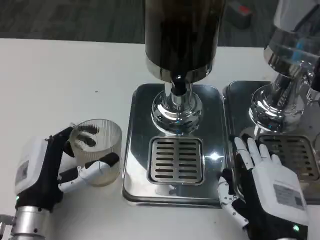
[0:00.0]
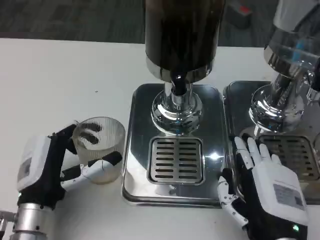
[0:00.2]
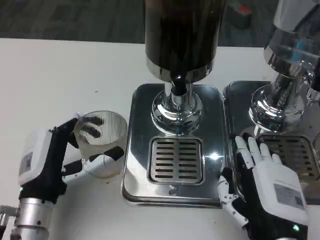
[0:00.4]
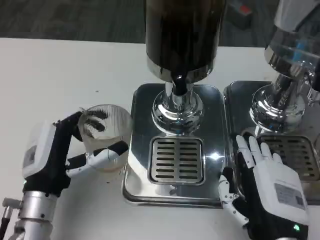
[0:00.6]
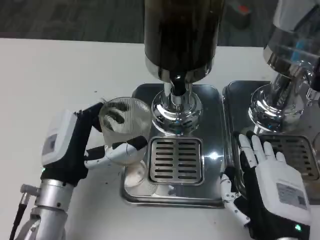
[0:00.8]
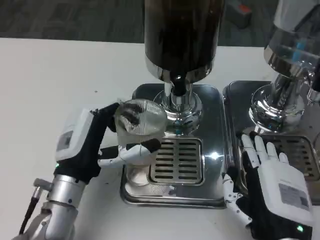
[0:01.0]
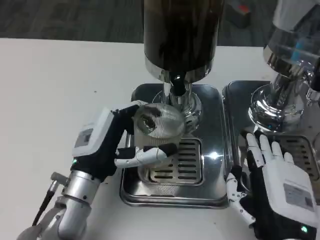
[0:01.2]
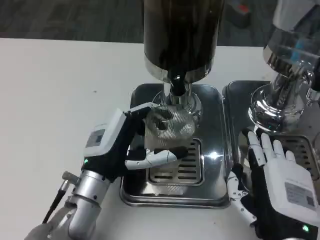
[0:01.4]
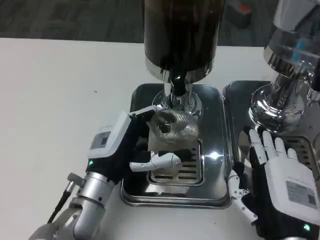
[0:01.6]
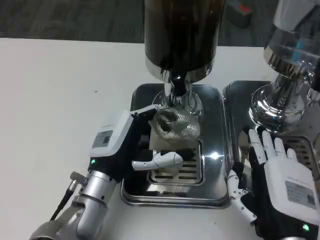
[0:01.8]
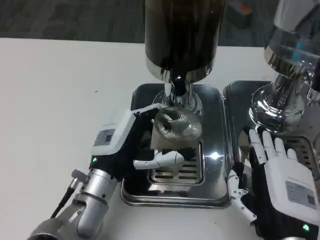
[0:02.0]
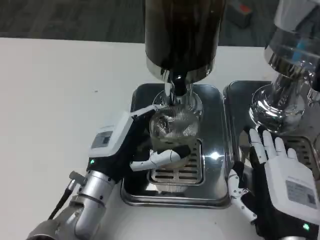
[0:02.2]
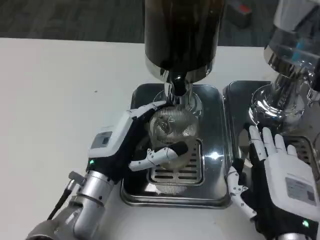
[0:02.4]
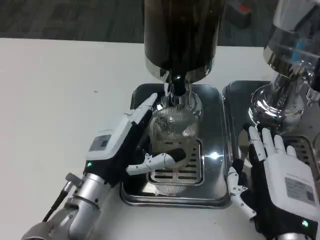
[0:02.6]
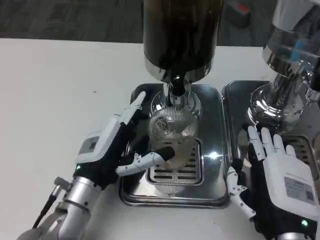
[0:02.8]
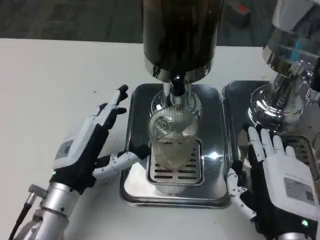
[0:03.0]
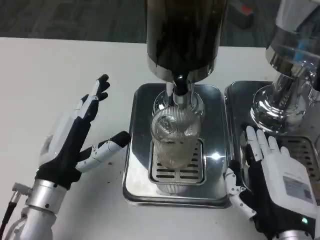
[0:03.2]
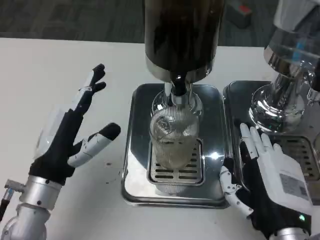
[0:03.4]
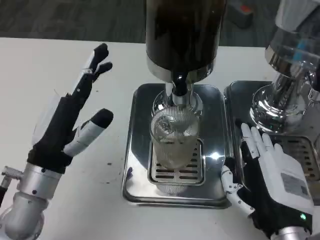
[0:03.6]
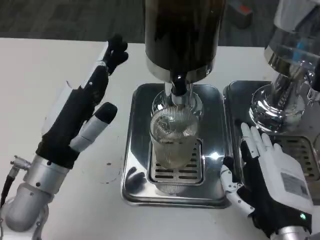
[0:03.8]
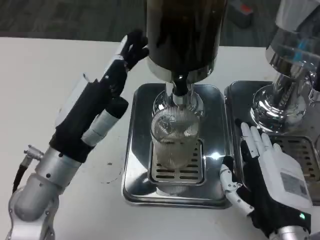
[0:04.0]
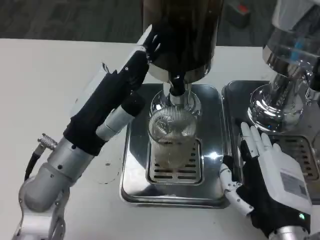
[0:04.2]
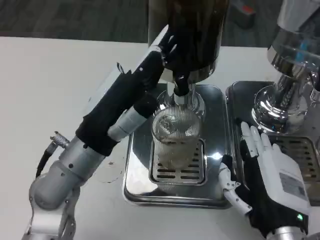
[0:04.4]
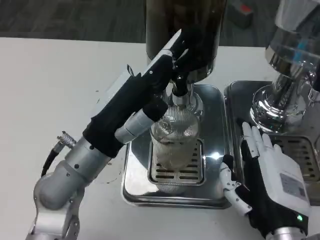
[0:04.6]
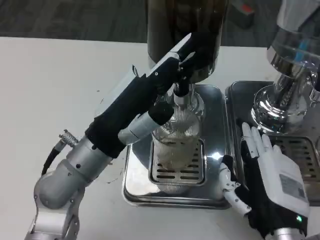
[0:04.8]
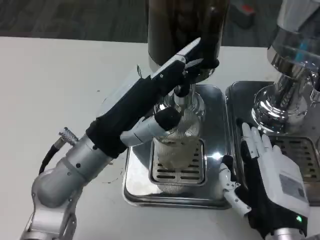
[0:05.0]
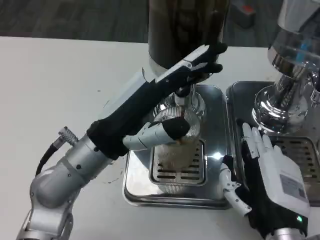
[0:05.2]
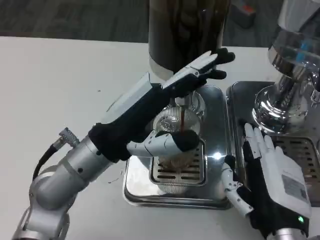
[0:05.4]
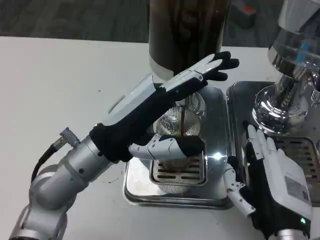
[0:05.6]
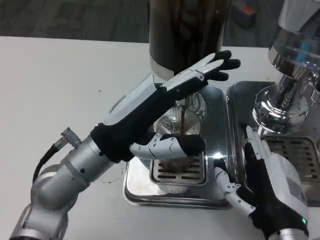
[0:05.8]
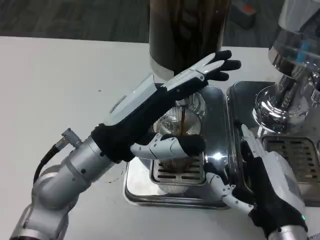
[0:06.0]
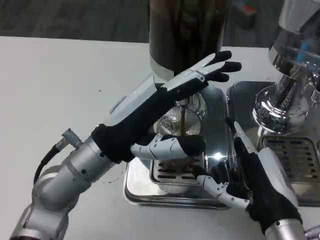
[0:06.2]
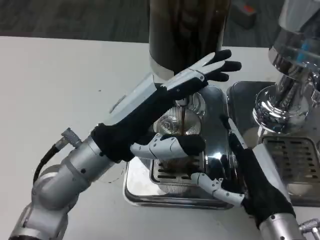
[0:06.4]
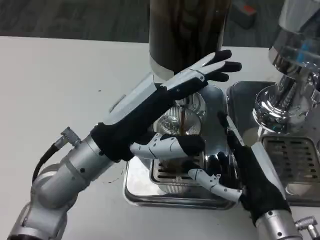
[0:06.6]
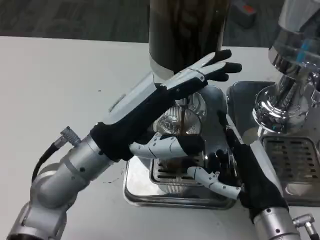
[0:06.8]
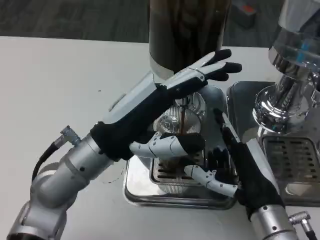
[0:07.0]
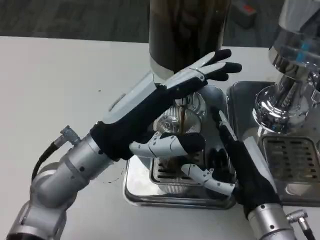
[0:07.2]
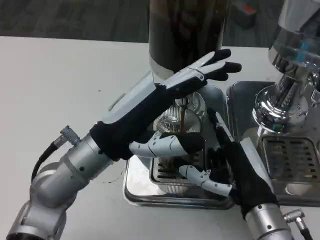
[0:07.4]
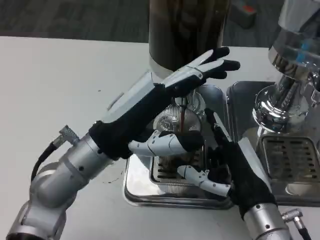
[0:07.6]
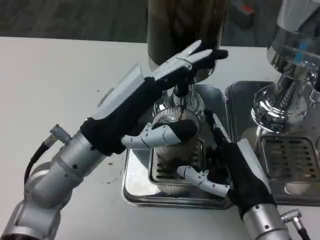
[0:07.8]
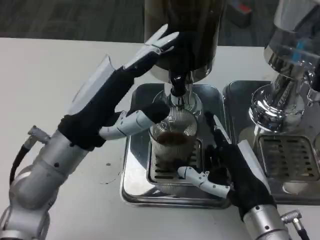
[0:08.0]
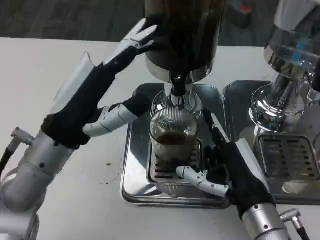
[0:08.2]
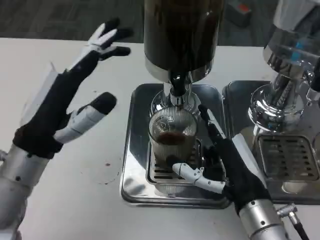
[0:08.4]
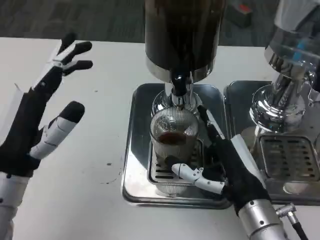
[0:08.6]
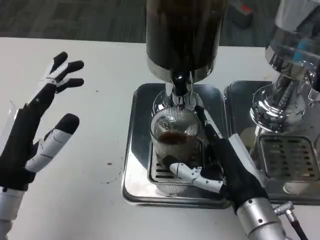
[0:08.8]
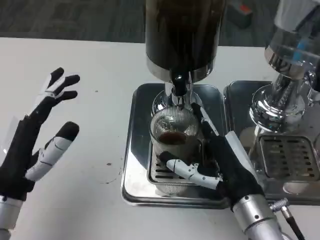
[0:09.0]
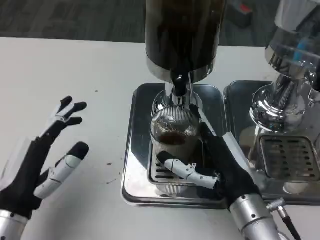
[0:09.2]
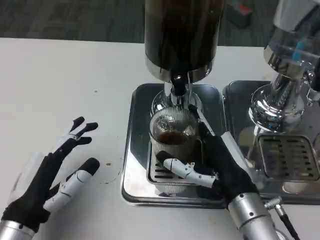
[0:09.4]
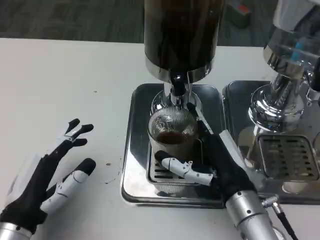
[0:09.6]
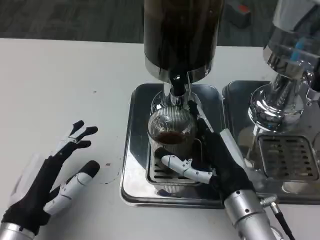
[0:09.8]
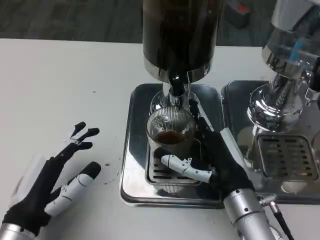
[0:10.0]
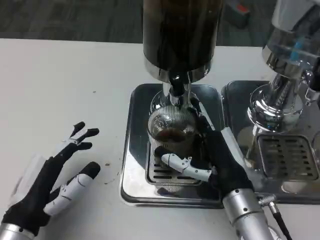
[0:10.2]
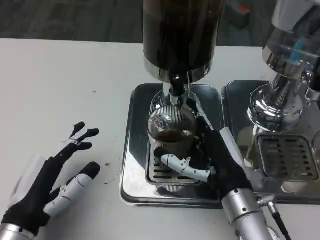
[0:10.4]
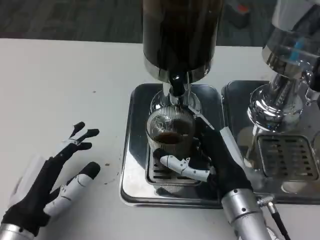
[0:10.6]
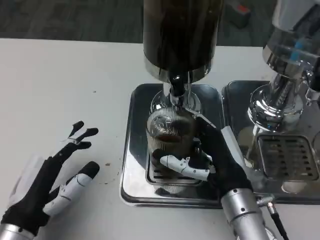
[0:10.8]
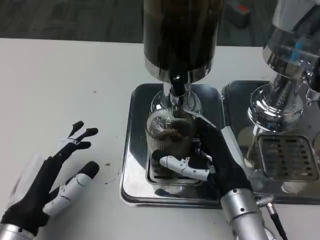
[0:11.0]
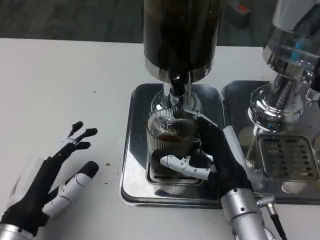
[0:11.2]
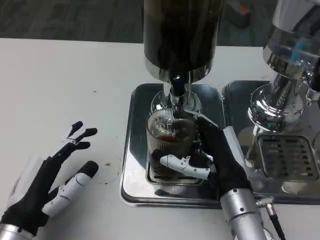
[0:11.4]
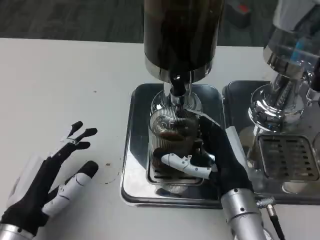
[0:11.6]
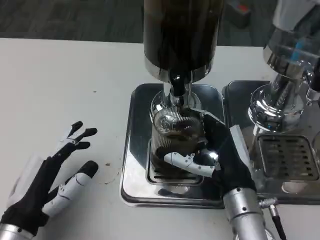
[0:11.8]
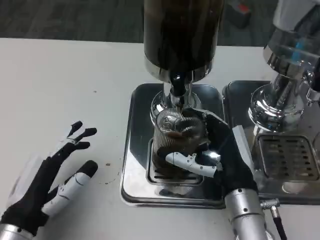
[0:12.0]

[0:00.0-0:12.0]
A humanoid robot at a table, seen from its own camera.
Task of the whole recording: Grasp the cup under the faucet to collect the drink, then remove the cup.
0:00.0 to 0:01.6: The left hand is displaced to the right and forward by some 10 cm.
0:01.6 to 0:03.0: The left hand is displaced to the left by roughly 5 cm.
0:03.0 to 0:04.4: The left hand travels upward by about 10 cm.
0:06.0 to 0:07.6: The hands stay close to where they were, moving slightly.
0:07.6 to 0:09.0: The left hand moves to the left, backward and downward, approximately 15 cm.
0:10.4 to 0:12.0: The hands stay close to where they were, moving slightly.

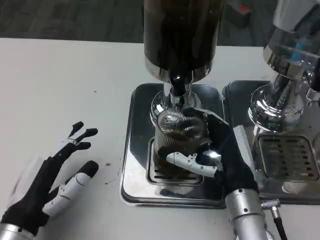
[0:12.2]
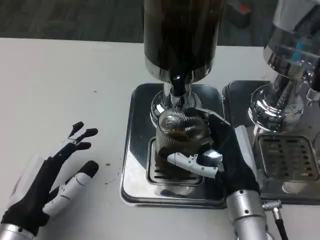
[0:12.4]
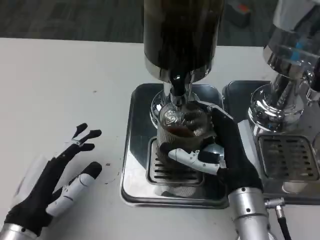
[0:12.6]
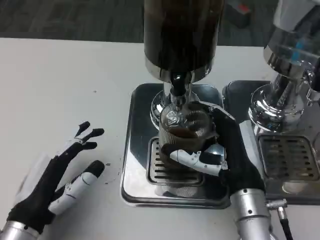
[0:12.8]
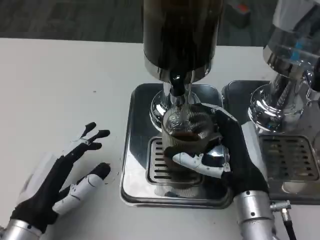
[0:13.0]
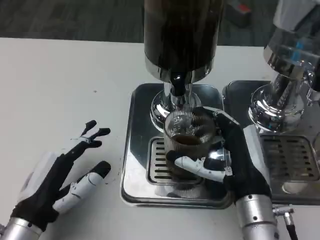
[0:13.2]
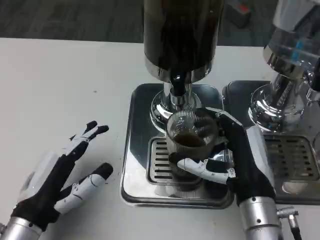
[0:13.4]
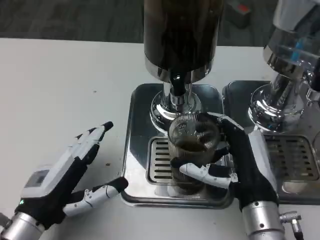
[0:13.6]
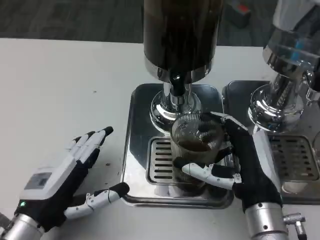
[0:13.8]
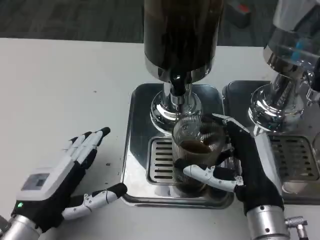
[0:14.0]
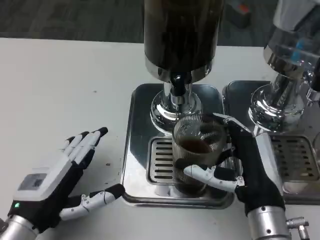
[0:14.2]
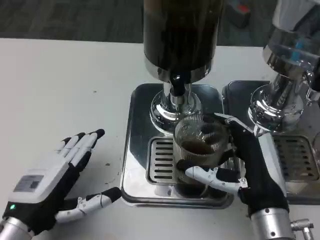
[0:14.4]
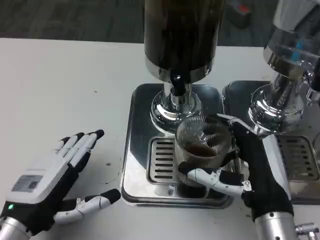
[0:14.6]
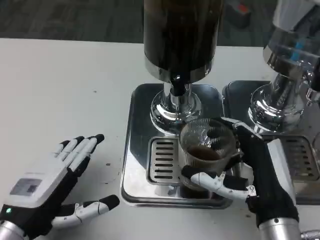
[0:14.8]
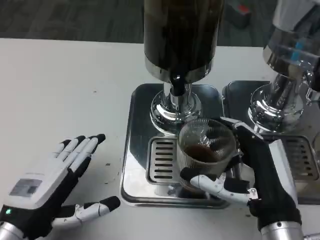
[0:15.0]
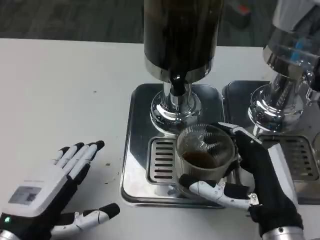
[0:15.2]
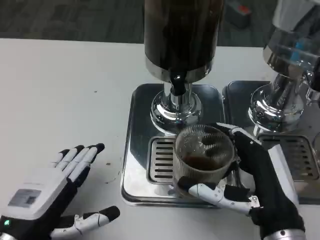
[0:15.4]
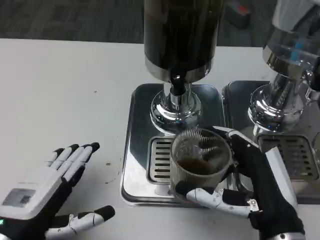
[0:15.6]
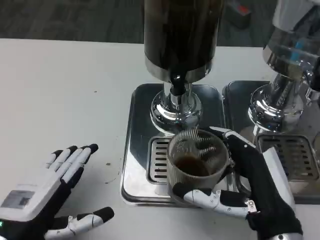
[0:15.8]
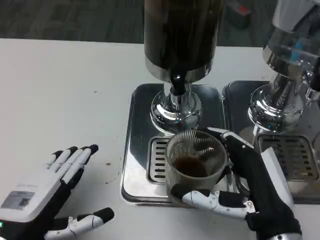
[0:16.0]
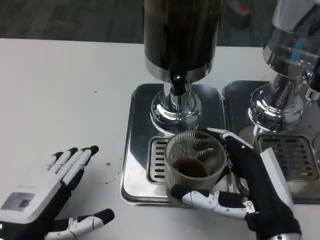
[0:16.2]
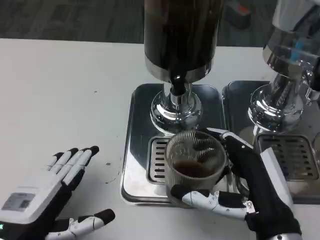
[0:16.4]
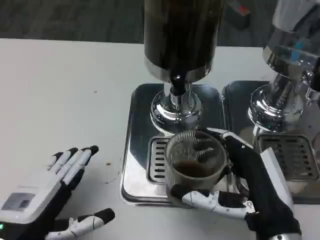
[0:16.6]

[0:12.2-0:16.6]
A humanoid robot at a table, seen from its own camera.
Task of the whole recording: Grasp the cup under the faucet to collect the drink, then remove the cup.
0:13.6 to 0:15.2: The right hand shifts by roughly 5 cm.
0:15.2 to 0:16.6: Both hands stay about where they are.

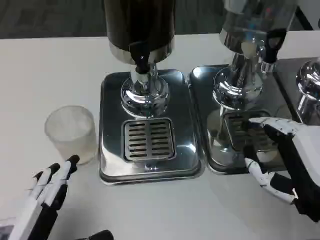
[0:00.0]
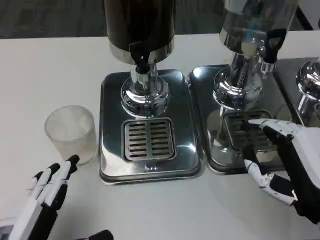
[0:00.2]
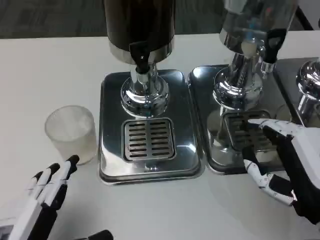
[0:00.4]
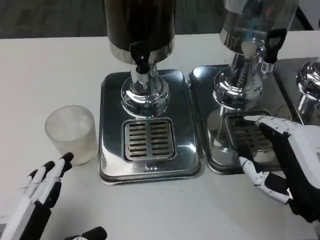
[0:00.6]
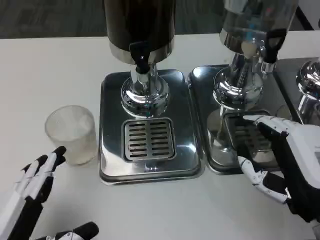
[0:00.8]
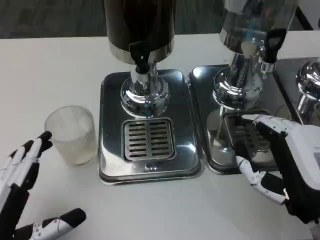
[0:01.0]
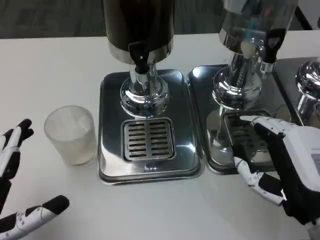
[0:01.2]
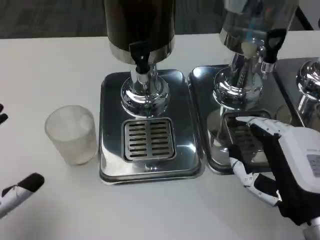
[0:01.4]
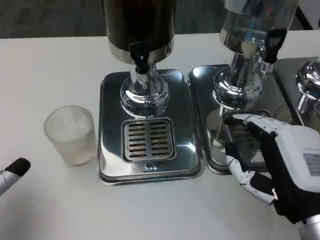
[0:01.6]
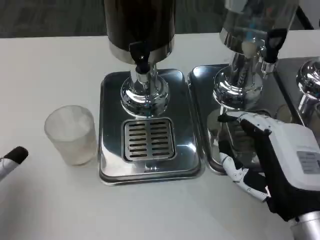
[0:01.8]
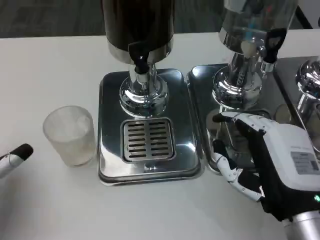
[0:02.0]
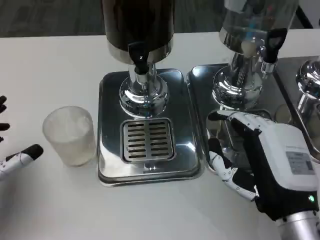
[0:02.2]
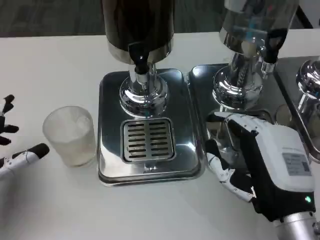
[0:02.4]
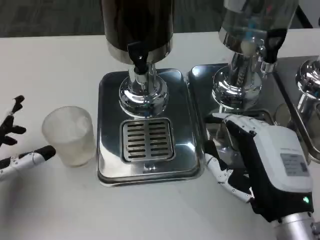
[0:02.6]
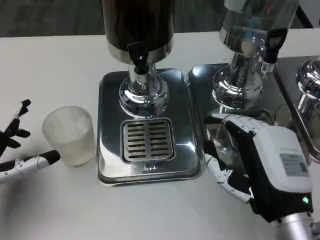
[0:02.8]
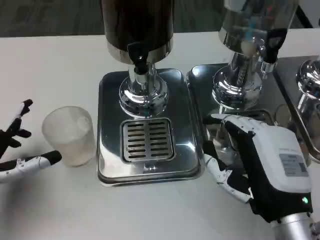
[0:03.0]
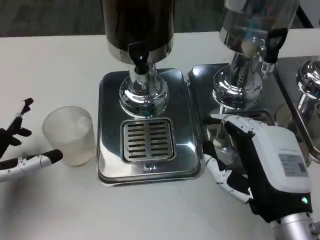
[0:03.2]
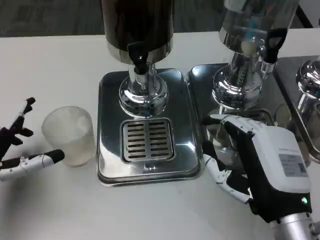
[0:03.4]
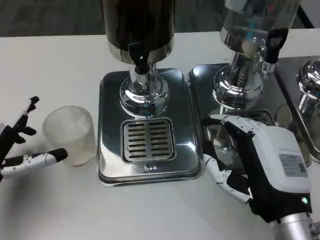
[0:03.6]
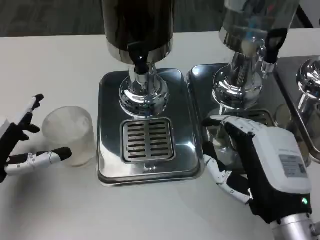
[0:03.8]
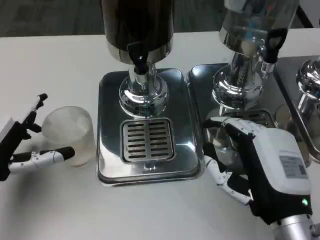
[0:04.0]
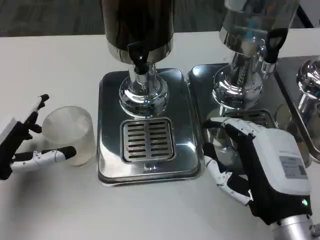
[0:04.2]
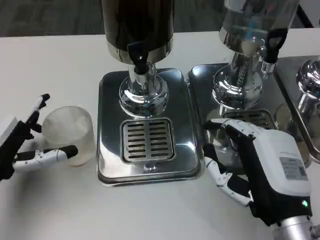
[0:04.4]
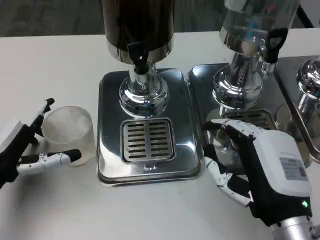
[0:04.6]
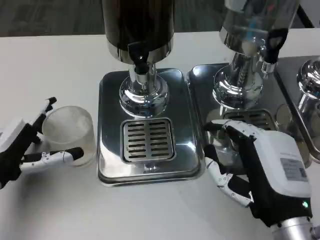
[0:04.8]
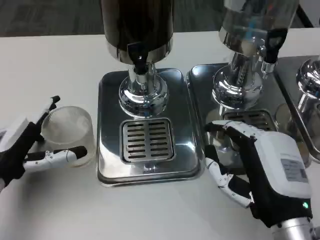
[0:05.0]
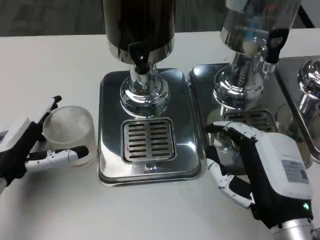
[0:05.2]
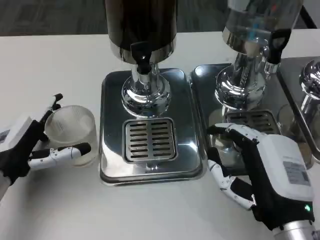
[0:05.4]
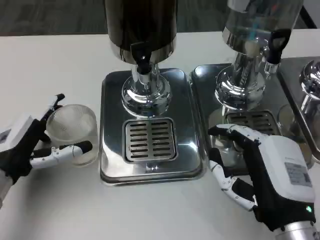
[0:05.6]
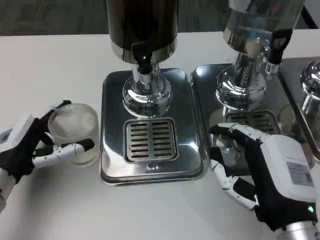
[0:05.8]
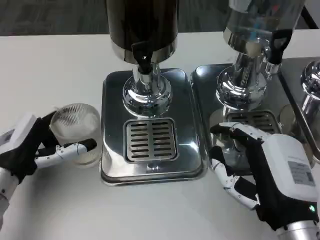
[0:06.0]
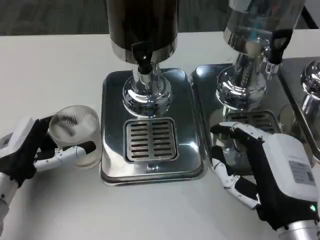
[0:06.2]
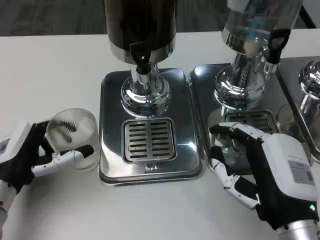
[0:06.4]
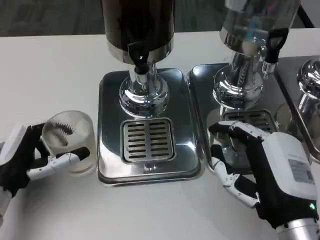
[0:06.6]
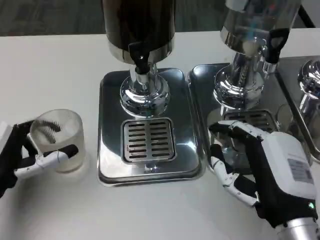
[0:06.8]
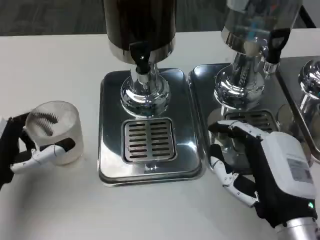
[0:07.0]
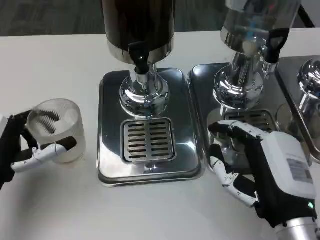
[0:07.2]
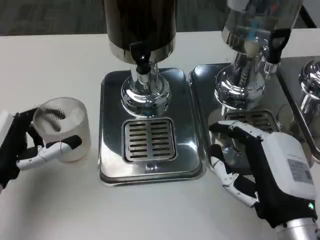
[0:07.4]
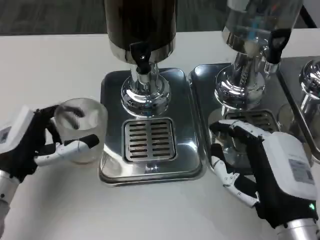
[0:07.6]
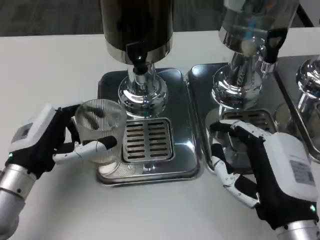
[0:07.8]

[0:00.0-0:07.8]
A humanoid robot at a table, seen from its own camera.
Task of the whole recording: Grasp the cup under the faucet to collect the drink, then remove the cup.
0:00.0 to 0:01.6: The left hand travels to the left and forward by approximately 10 cm.
0:01.6 to 0:03.2: The left hand goes roughly 5 cm forward.
0:03.2 to 0:04.6: There are only small adjustments of the hands.
